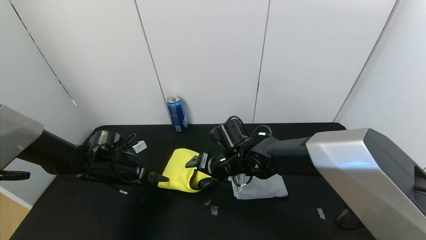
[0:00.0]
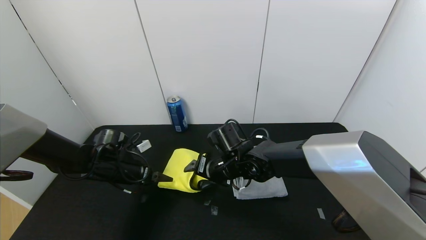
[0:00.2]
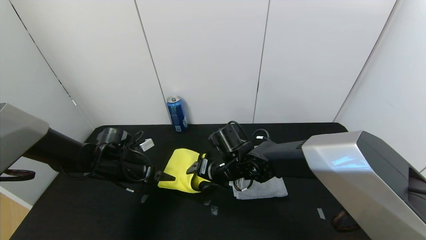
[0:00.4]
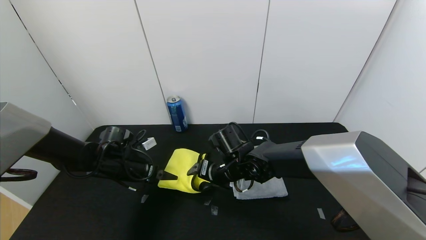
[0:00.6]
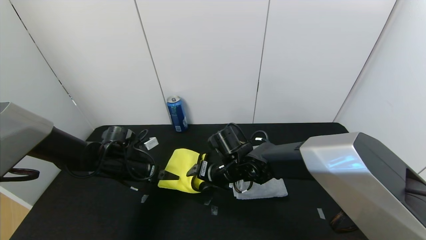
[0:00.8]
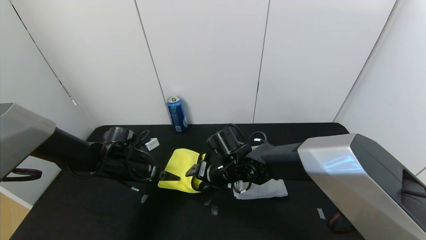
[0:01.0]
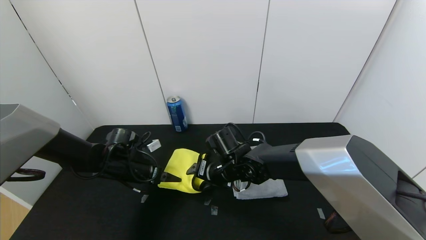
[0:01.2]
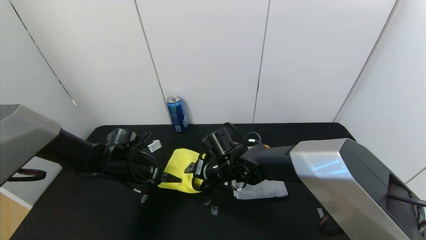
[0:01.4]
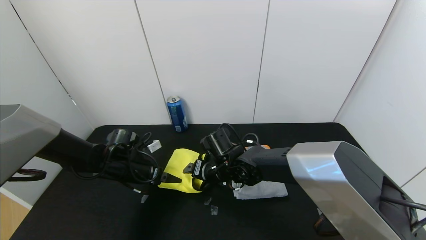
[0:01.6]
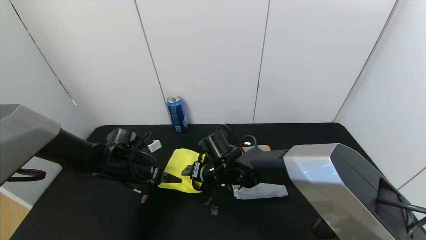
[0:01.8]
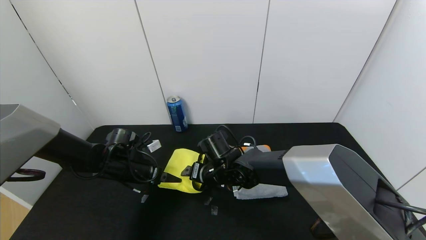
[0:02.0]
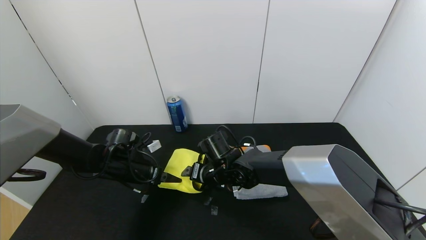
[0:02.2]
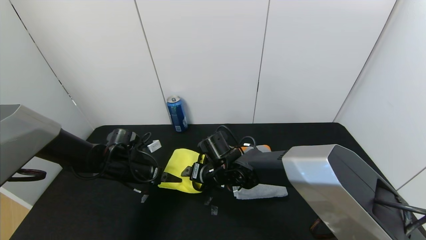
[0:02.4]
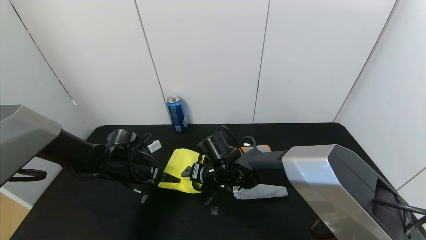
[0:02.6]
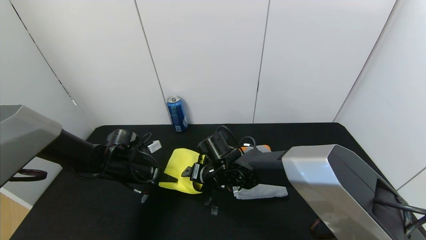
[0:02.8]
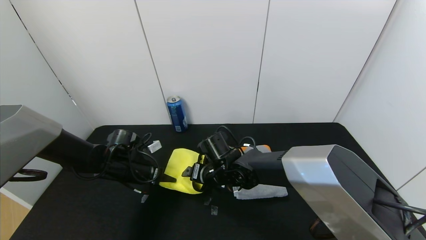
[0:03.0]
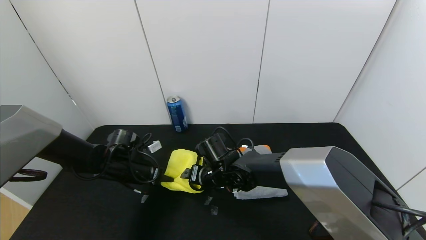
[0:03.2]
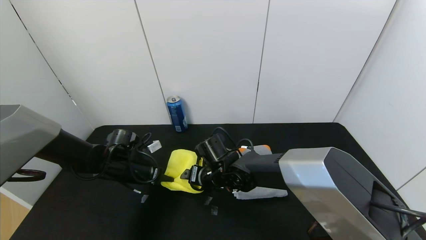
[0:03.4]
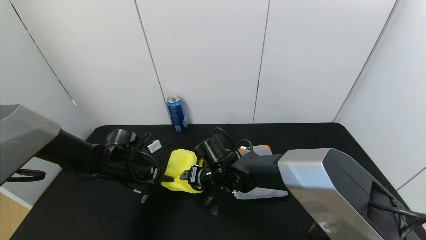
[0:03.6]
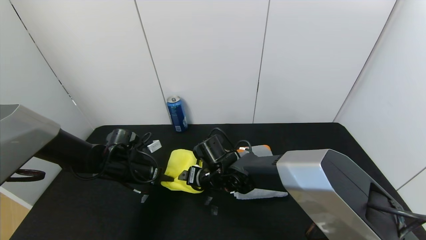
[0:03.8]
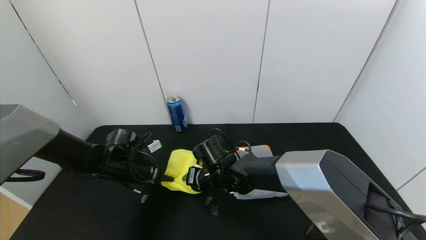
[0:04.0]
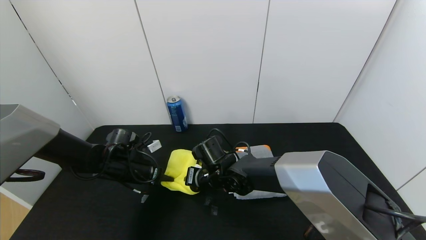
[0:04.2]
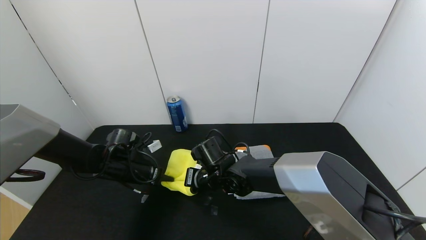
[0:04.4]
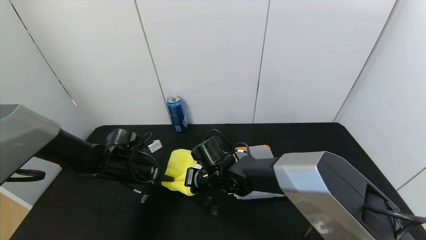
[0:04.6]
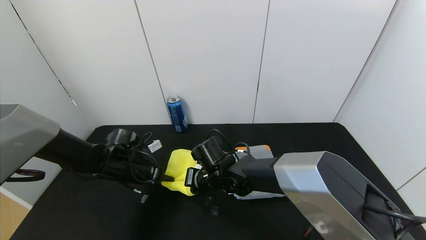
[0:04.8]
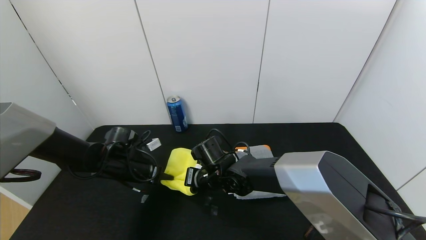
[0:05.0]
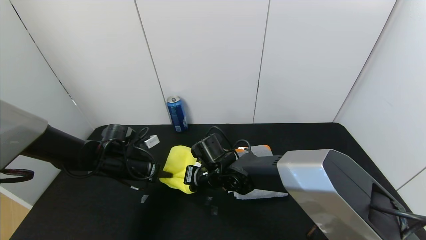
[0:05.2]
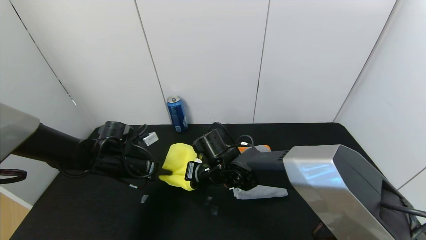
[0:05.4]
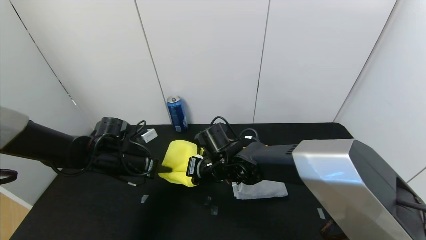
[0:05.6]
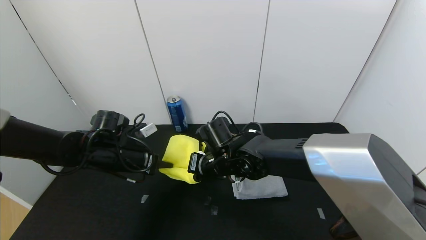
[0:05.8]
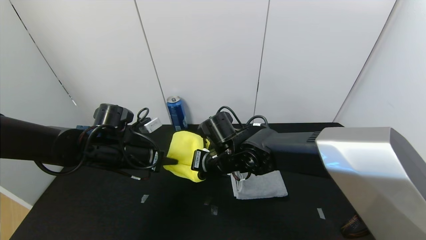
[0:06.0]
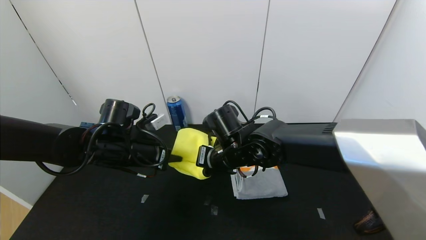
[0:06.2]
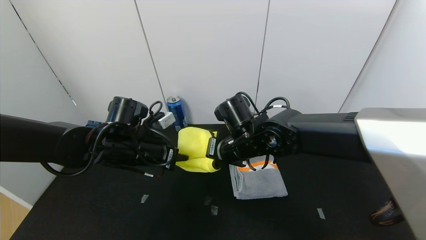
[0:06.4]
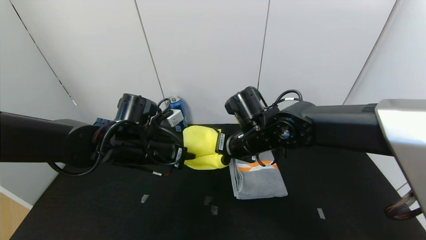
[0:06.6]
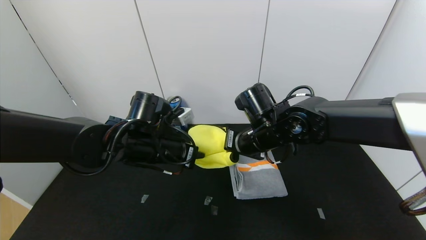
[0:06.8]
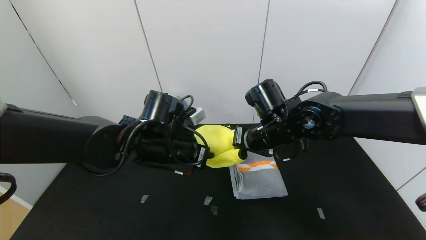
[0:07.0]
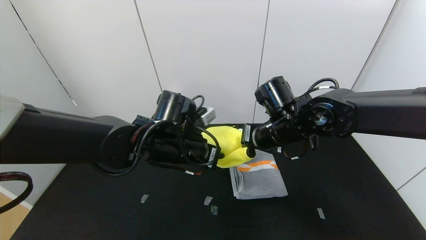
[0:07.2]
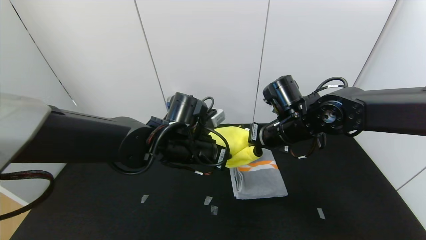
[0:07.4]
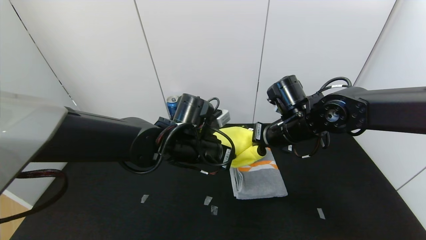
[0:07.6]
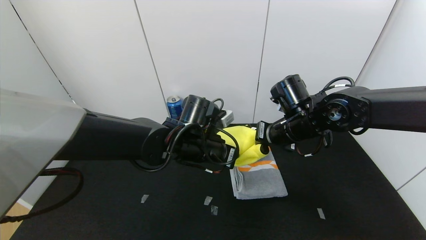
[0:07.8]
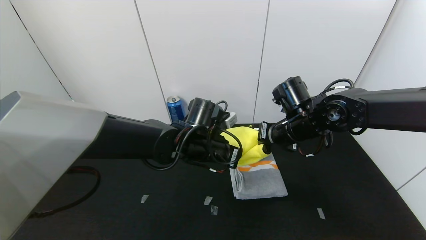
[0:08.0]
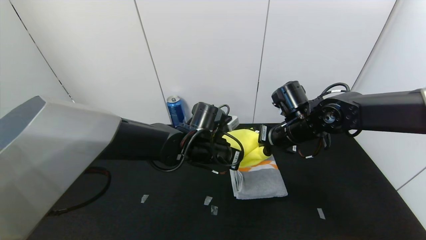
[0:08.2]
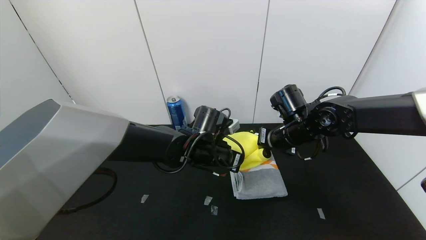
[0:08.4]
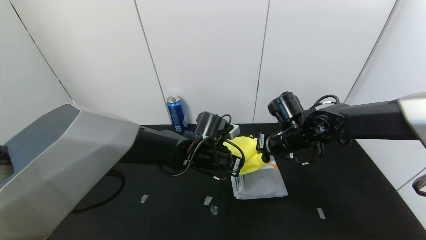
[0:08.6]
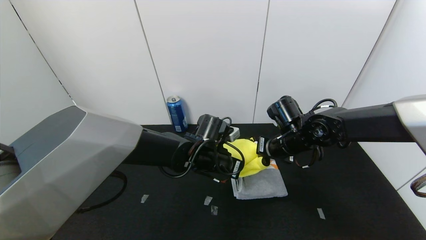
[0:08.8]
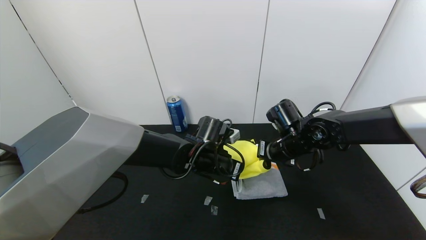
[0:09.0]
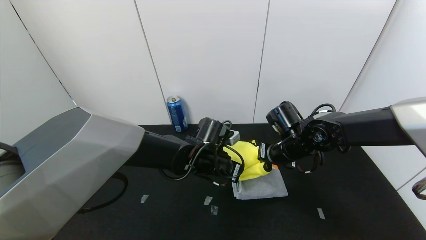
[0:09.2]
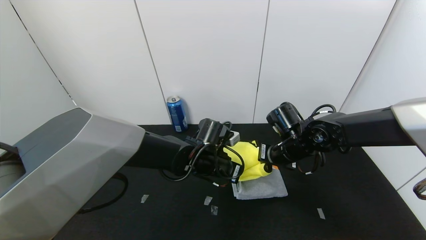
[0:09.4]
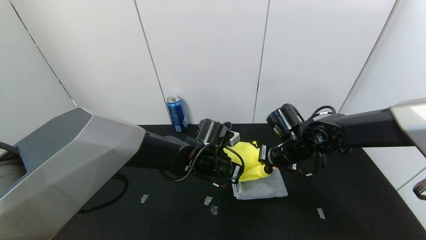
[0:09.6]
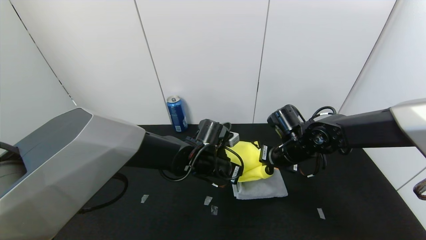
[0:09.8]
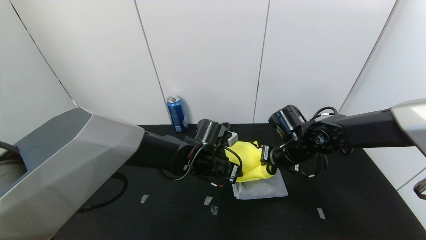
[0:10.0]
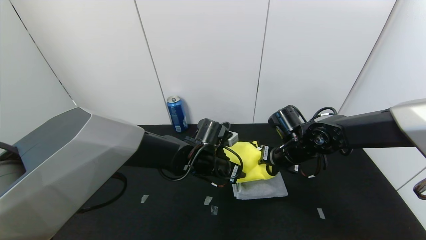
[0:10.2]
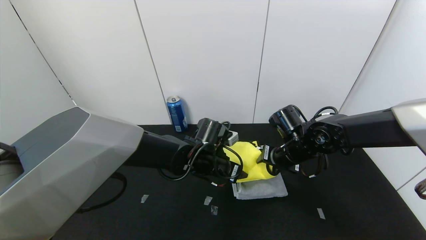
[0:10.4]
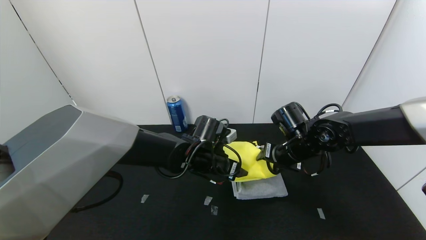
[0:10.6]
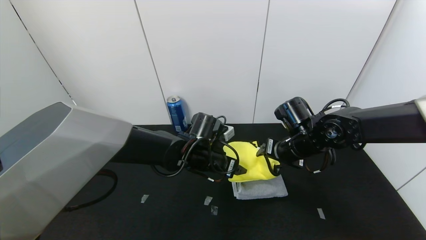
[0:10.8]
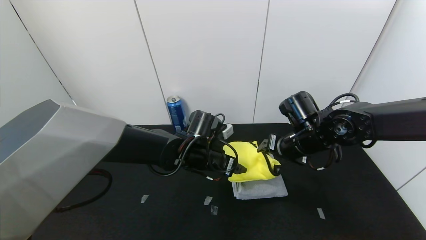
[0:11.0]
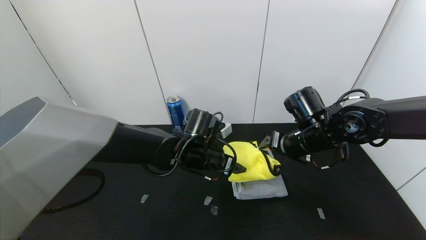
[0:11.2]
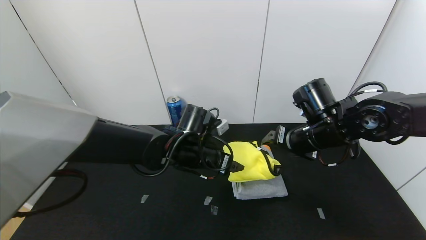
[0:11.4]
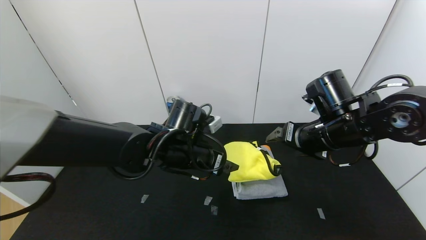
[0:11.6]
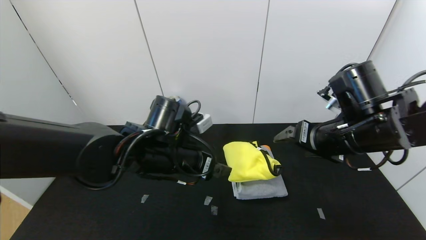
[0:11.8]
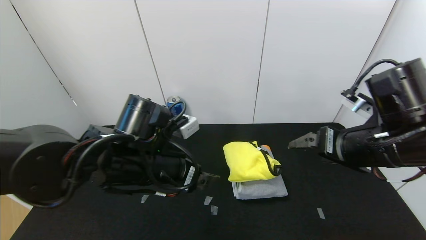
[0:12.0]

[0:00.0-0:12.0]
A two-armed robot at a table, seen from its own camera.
Task of the whole recording: Use the gripper to fold the yellow towel and grey towel in half twice,then put the yellow towel on the grey towel.
Step, 0:00.0 to 0:10.8: Place the yellow towel on the gray towel with the left gripper.
Step, 0:00.0 to 0:10.8: Place the yellow towel on the gray towel with the right gripper.
0:00.0 to 0:01.6: The grippers make only small movements.
0:01.6 to 0:03.0: The left gripper closes up.
0:03.0 to 0:04.4: The right gripper closes its fingers, while the left gripper closes.
0:04.4 to 0:06.0: The grippers both shift upward by some 10 cm.
0:06.0 to 0:07.6: The right gripper goes approximately 15 cm to the right and upward. The left gripper shifts approximately 15 cm to the right.
0:07.6 to 0:09.0: Both grippers travel together downward, some 5 cm.
0:09.0 to 0:10.4: The left gripper opens its fingers. The right gripper opens.
0:10.4 to 0:12.0: The right gripper heads backward, upward and to the right, covering approximately 20 cm, while the left gripper goes some 15 cm backward, upward and to the left.

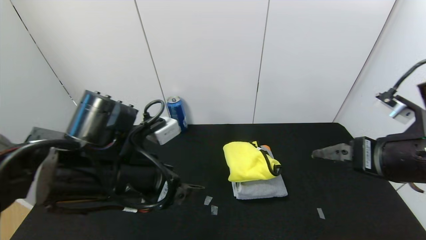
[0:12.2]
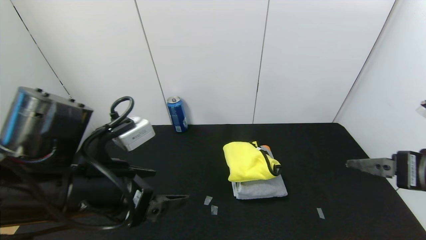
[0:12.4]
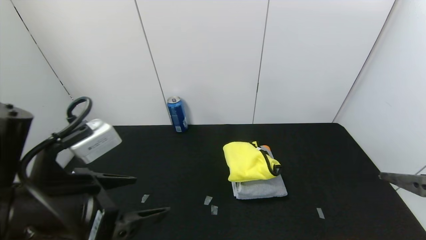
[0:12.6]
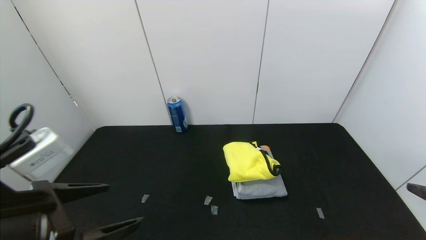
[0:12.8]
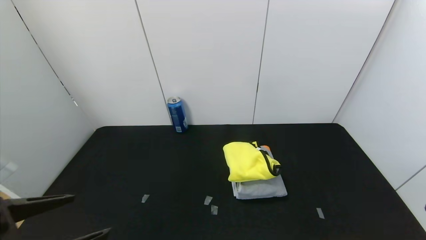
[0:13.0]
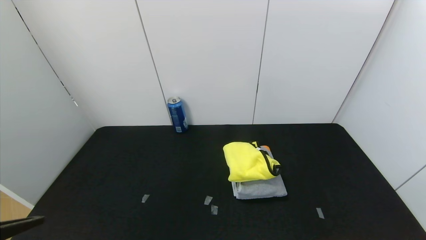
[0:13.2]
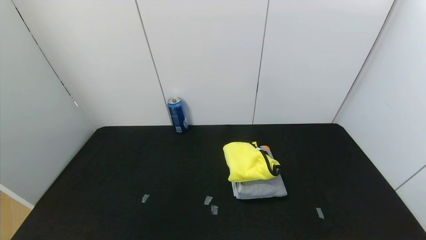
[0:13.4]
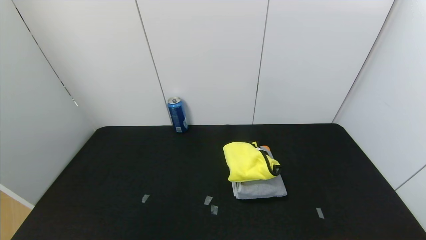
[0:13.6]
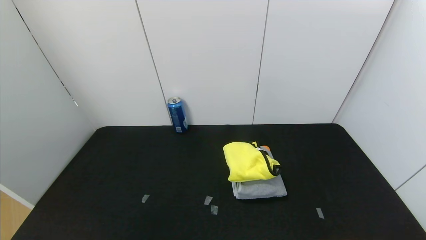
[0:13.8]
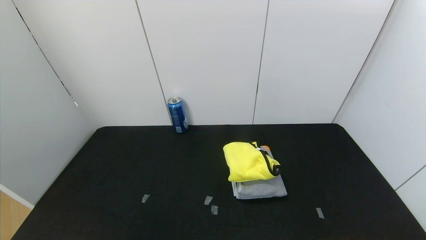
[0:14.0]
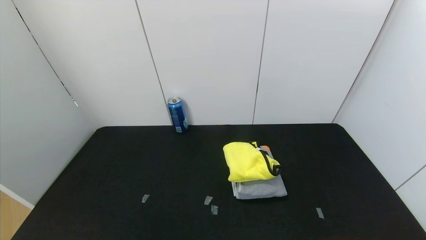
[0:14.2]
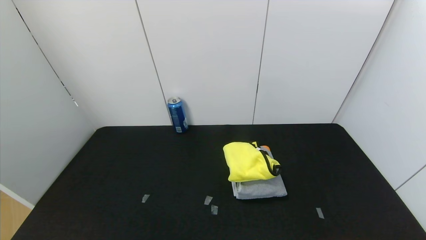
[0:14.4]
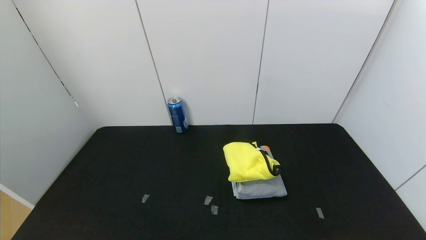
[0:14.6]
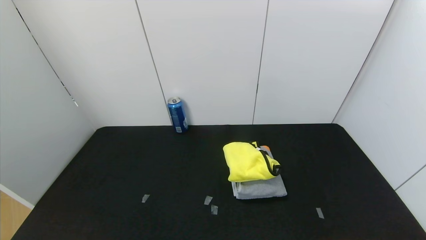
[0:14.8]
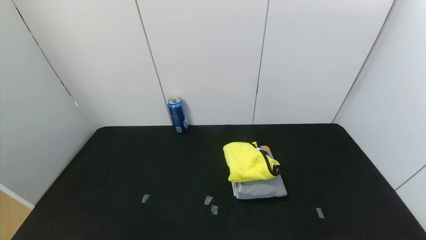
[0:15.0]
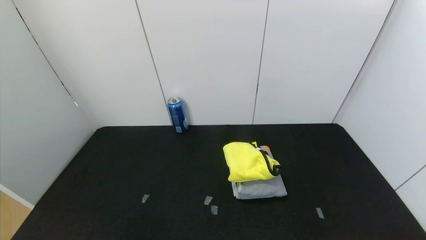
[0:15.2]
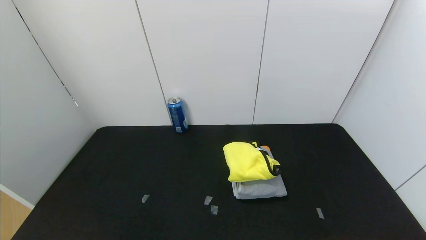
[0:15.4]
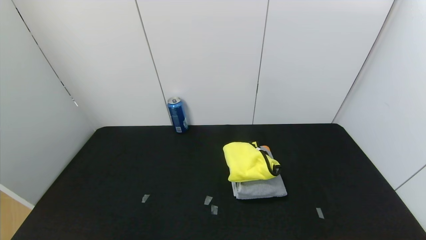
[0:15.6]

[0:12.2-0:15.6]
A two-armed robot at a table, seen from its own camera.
Task of the whole recording: Use the gripper to fold the yellow towel and grey towel in half twice,then put the yellow towel on the grey towel.
0:12.2 to 0:13.8: The right gripper moves backward, roughly 25 cm, while the left gripper is displaced backward and to the left by approximately 30 cm.
